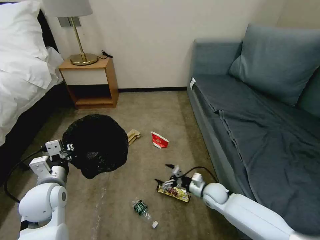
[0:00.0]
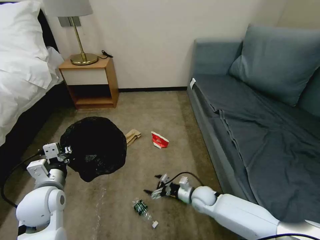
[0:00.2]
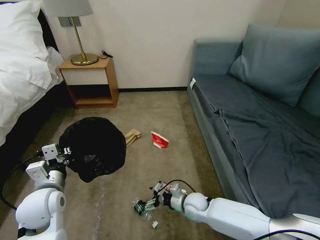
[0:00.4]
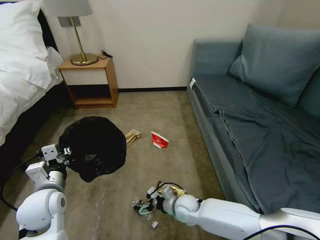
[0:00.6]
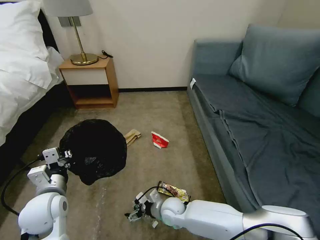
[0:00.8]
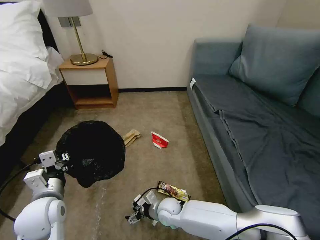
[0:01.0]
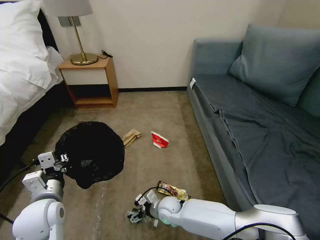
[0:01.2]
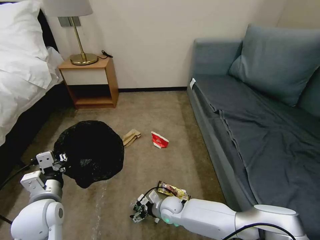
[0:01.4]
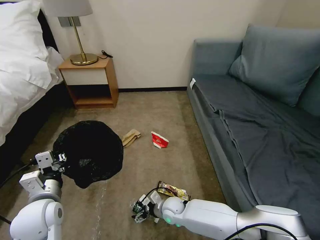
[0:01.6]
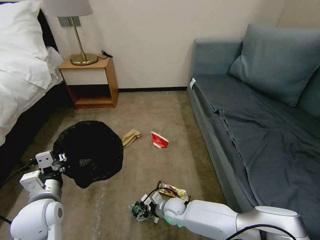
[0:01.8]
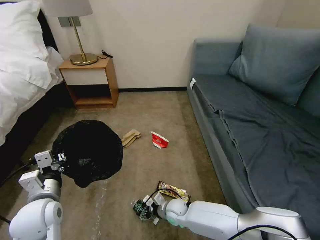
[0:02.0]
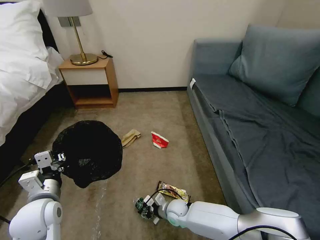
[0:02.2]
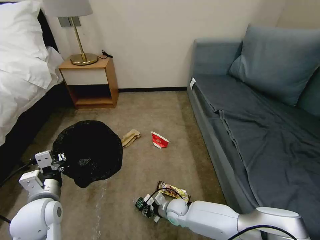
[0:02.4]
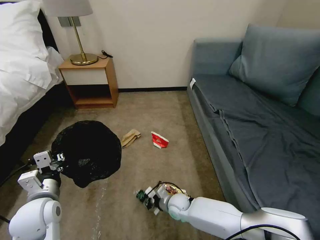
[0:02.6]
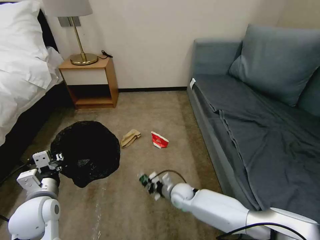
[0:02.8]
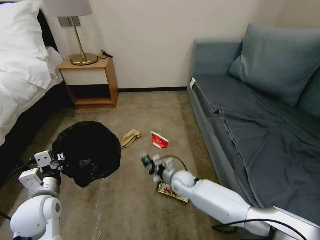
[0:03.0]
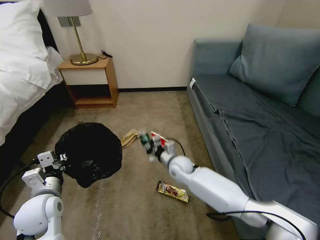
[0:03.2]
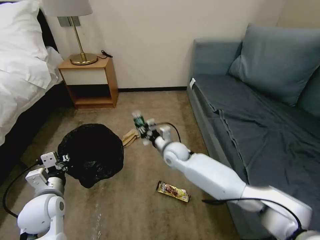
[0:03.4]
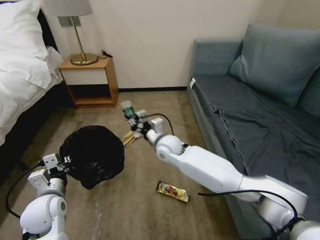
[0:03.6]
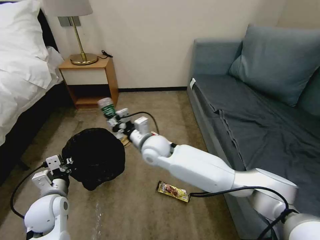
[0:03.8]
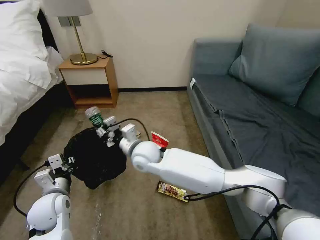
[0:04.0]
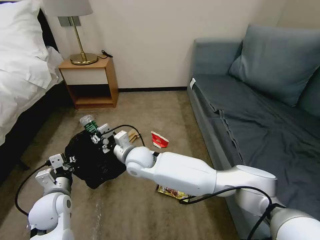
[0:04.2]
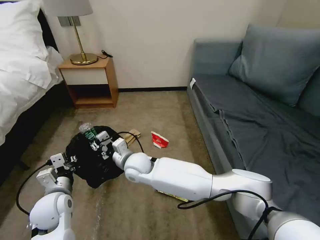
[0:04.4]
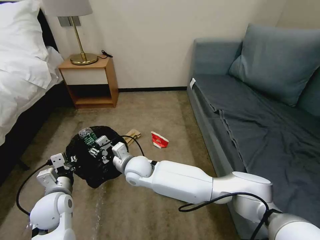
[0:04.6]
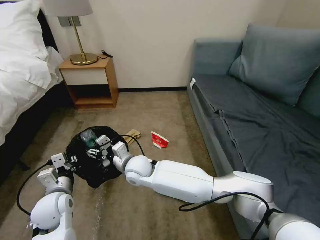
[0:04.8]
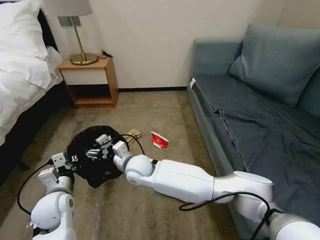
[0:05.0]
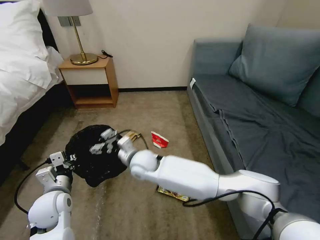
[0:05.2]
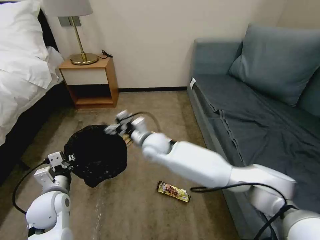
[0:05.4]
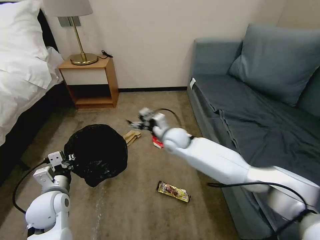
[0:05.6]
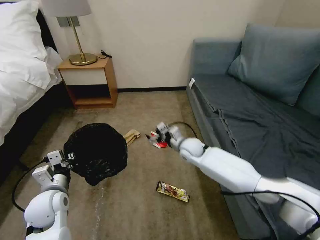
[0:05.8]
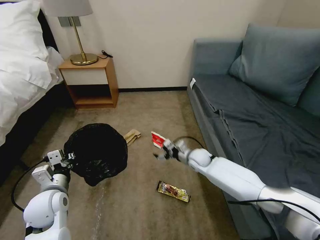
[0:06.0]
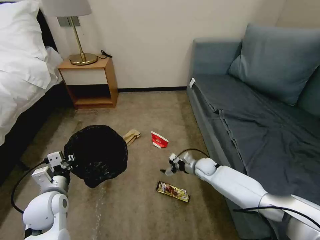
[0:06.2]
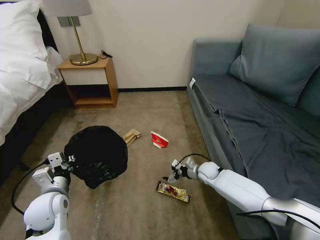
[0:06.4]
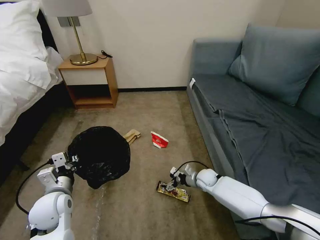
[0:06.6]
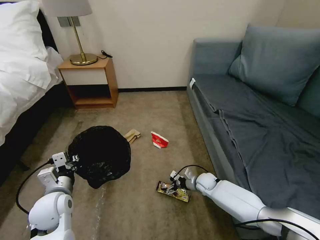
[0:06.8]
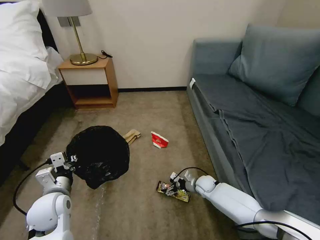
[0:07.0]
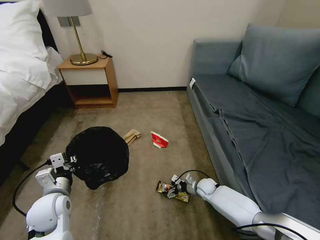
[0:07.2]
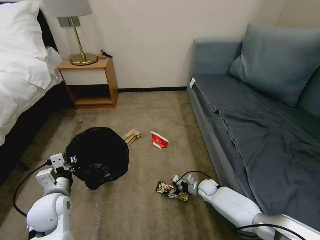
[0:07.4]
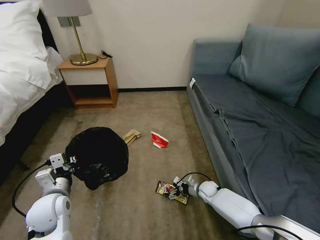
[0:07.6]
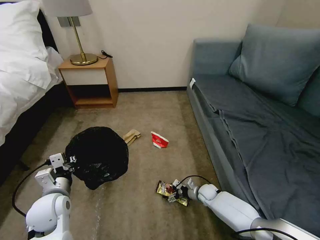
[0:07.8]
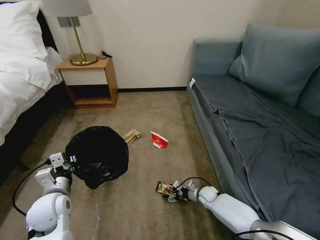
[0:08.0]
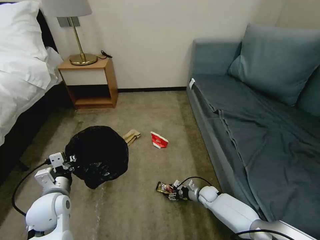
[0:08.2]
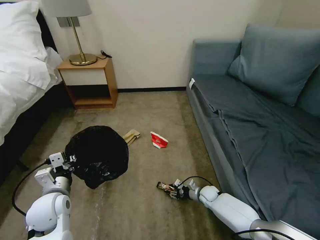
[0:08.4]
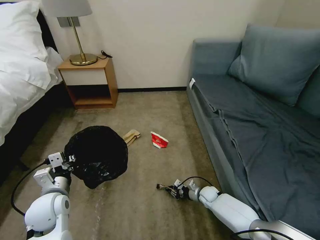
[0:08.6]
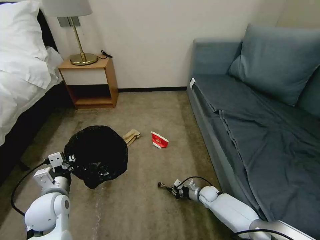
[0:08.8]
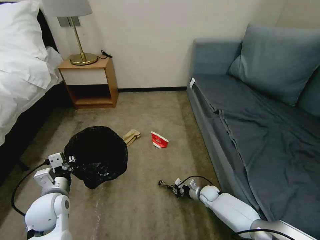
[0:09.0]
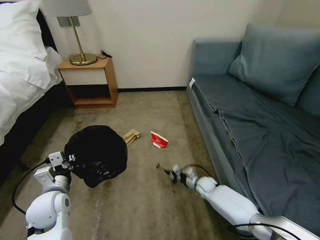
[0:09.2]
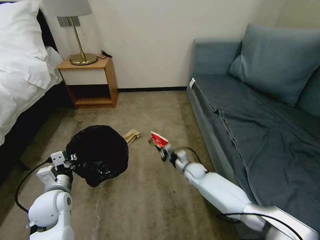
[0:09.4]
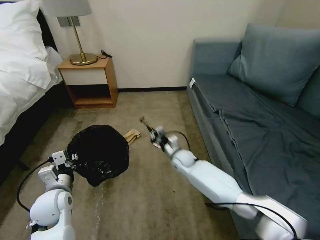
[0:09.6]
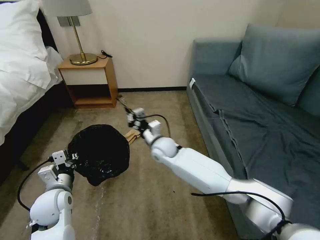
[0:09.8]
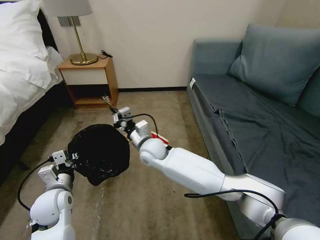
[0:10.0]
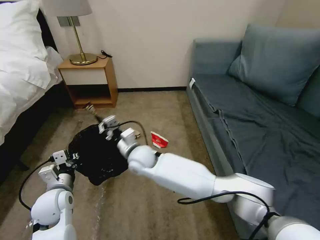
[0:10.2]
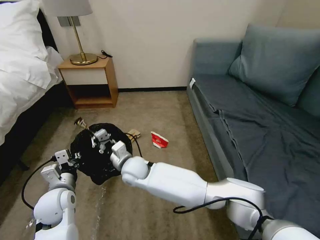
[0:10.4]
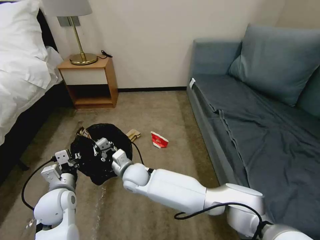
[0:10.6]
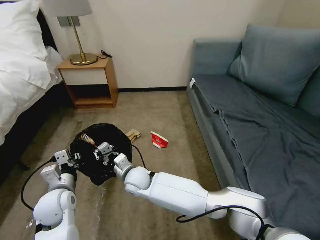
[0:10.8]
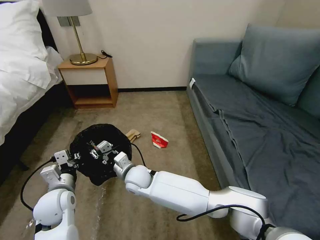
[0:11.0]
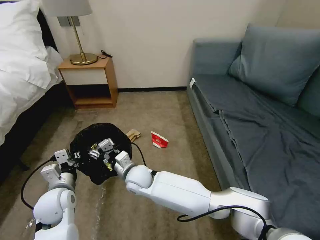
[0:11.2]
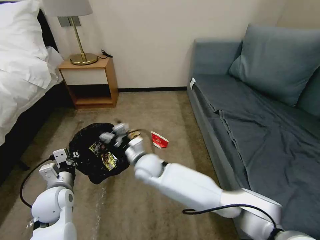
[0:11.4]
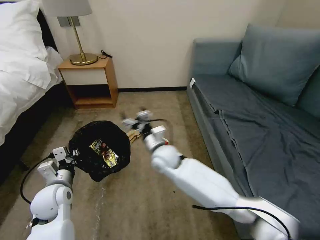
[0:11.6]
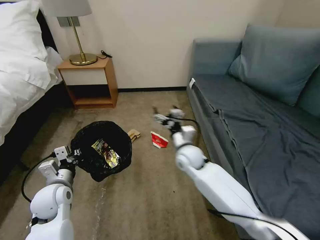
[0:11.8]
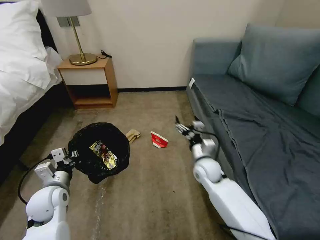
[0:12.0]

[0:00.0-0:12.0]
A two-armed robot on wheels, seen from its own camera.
Task of the whole recording: Pick up the trash bin, then pick up the garbage on the floor and place it into the trash bin.
0:00.0 to 0:01.6: The right gripper travels to the left by about 15 cm.
0:01.6 to 0:03.0: The right gripper is displaced forward and upward by approximately 10 cm, and closes its fingers.
0:03.0 to 0:04.4: The right gripper shifts about 25 cm to the left and upward.
0:04.4 to 0:06.0: The right gripper is displaced to the right by roughly 25 cm, and opens its fingers.
0:06.0 to 0:07.6: The right gripper travels downward and backward by approximately 15 cm.
0:07.6 to 0:09.0: The right gripper closes up.
0:09.0 to 0:10.4: The right gripper shifts about 40 cm to the left and upward.
0:10.4 to 0:12.0: The right gripper travels to the right by approximately 25 cm, and opens up.

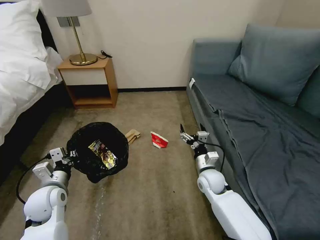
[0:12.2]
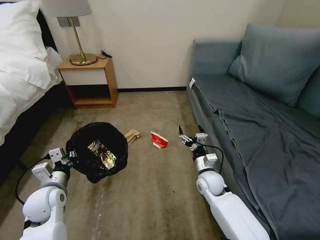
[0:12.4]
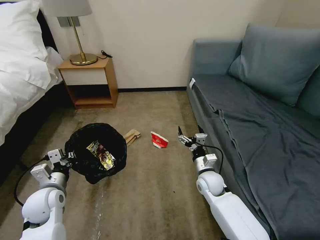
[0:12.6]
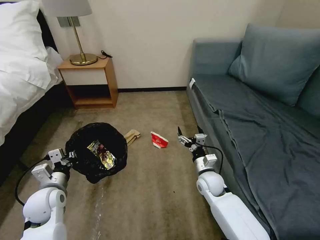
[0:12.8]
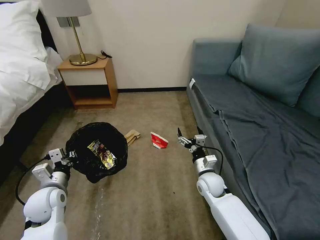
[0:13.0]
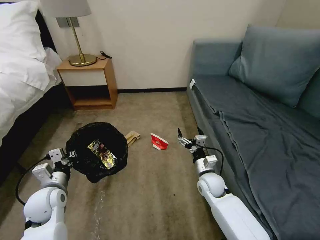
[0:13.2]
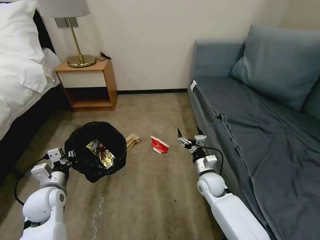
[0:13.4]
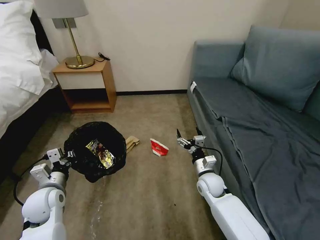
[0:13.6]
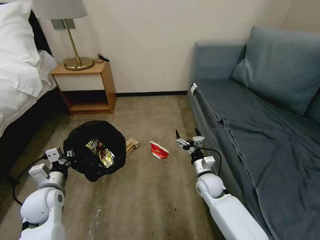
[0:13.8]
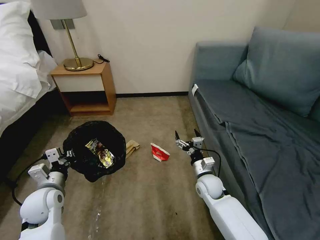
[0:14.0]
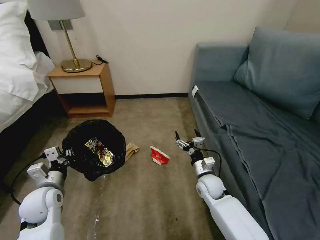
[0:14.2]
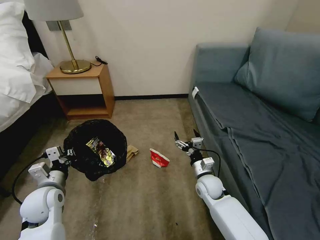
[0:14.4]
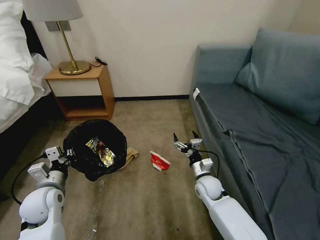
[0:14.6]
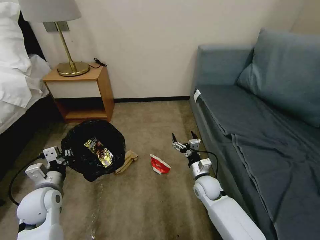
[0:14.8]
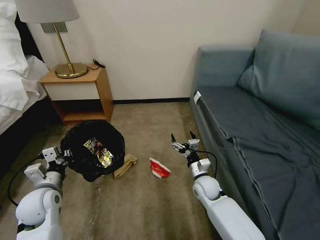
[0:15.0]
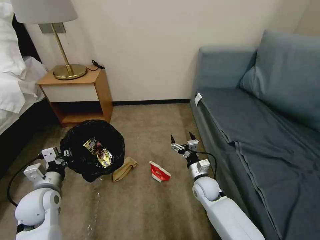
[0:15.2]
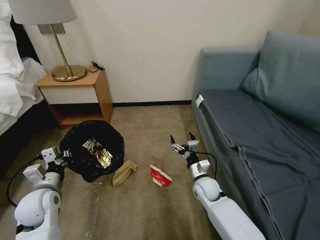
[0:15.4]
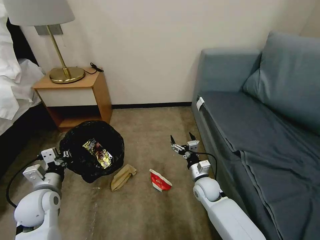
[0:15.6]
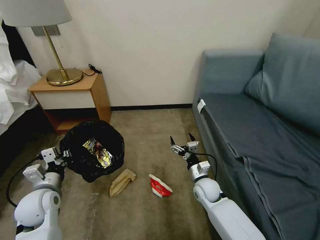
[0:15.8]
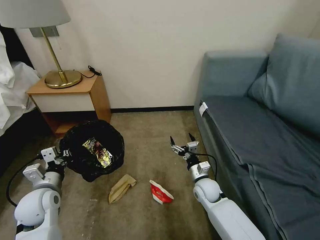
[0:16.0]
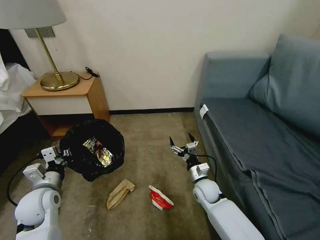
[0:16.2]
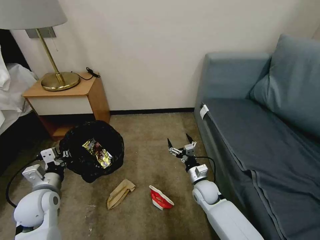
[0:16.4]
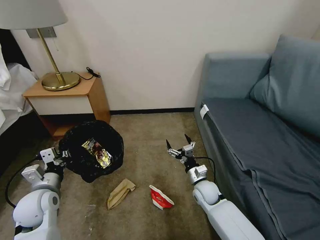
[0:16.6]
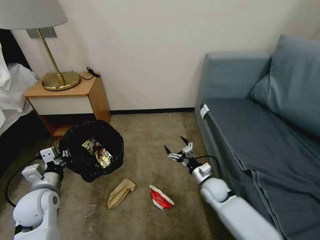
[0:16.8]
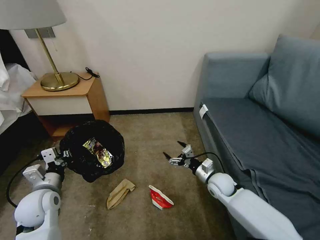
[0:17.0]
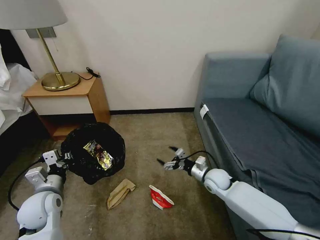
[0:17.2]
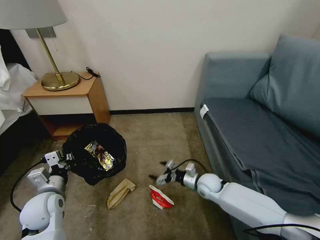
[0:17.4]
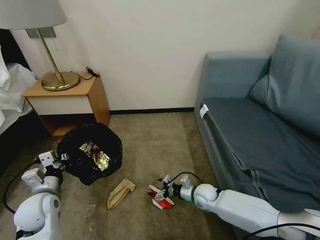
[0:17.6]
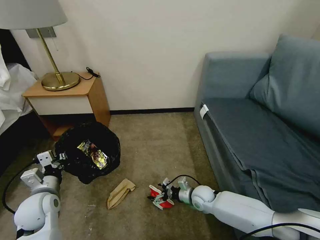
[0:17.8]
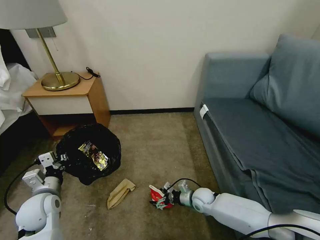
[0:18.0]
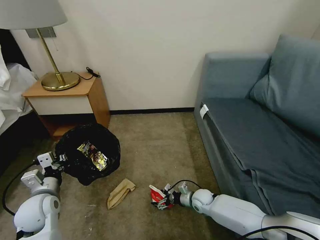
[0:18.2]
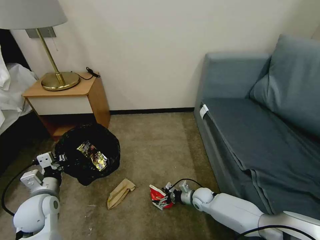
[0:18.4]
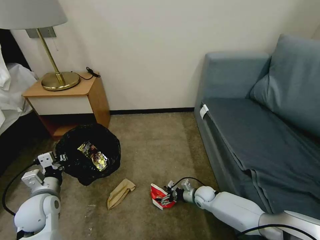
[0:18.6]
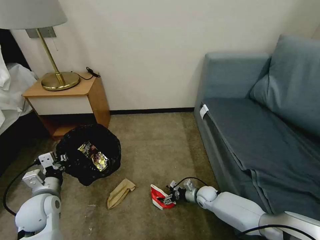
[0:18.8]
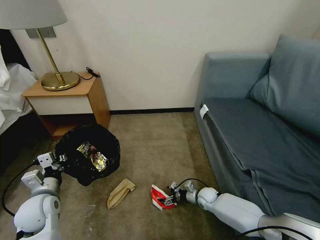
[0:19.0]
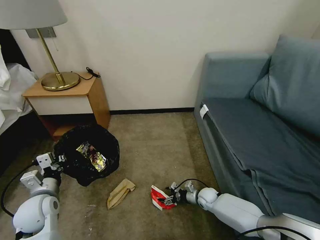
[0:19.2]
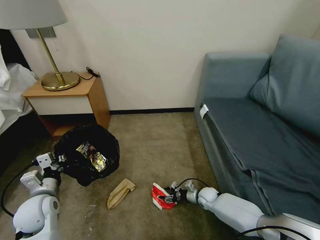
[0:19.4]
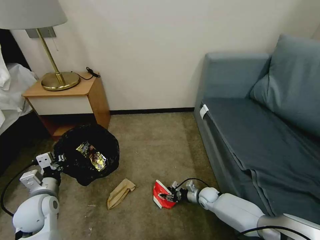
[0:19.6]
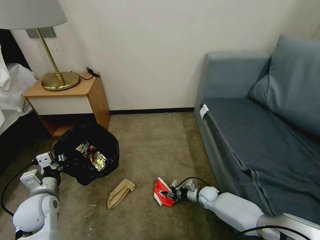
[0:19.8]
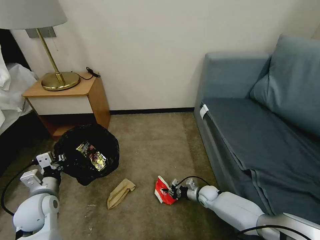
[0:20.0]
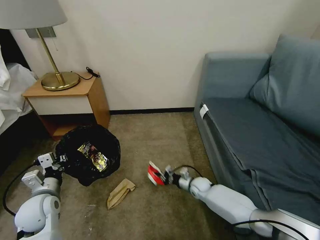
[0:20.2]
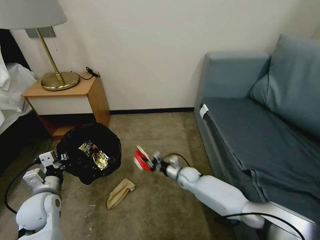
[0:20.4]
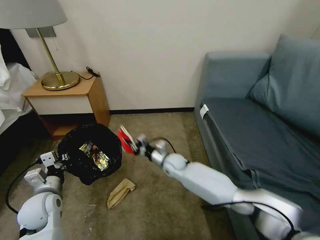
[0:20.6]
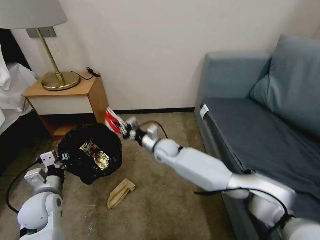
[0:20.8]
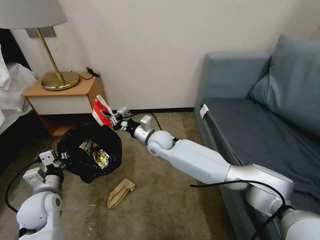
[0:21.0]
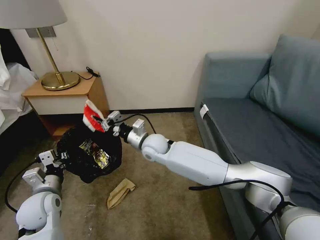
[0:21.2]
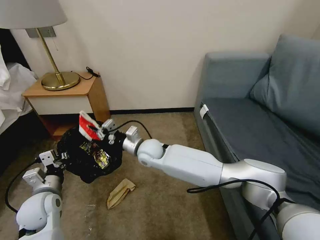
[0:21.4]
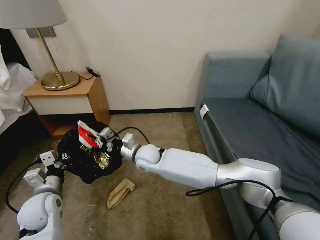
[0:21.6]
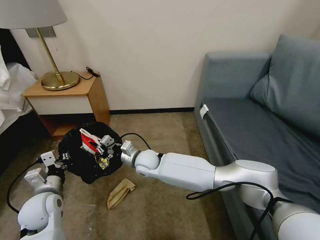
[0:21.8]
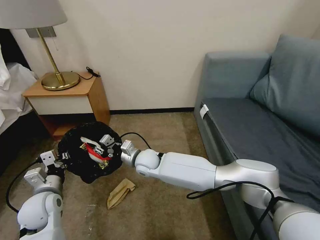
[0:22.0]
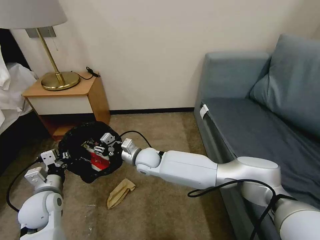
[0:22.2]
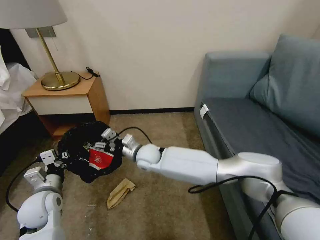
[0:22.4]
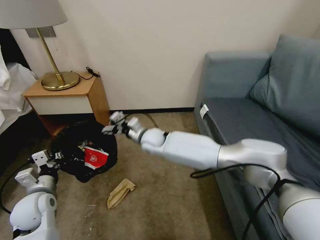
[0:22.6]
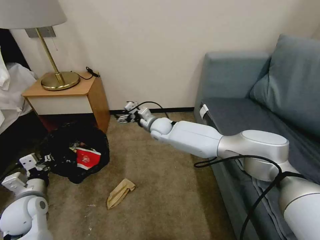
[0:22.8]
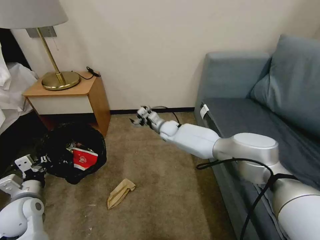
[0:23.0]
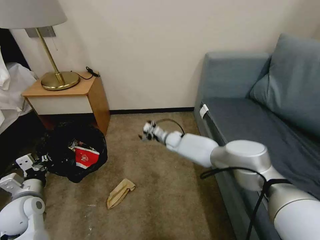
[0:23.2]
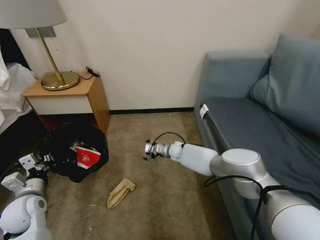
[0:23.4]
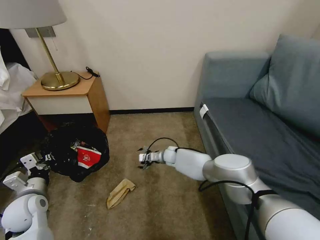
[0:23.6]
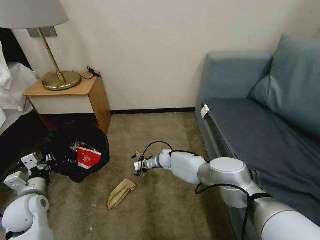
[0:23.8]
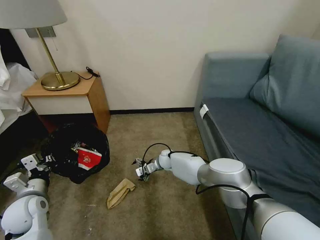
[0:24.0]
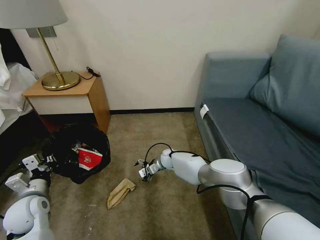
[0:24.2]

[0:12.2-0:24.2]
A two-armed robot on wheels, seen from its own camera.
Task of the whole recording: Pick up the trash bin, then pick up the garbage on the floor and place it into the trash bin.
0:12.2 to 0:13.8: The grippers stay close to where they were, moving slightly.
0:16.6 to 0:18.2: The right gripper heads downward, covering approximately 10 cm.
0:18.2 to 0:19.8: The right gripper moves roughly 5 cm, and closes its fingers.
0:19.8 to 0:21.2: The right gripper is displaced upward and to the left by some 40 cm.
0:21.2 to 0:22.6: The right gripper opens up.
0:22.6 to 0:24.2: The right gripper shifts about 20 cm downward and to the right.
